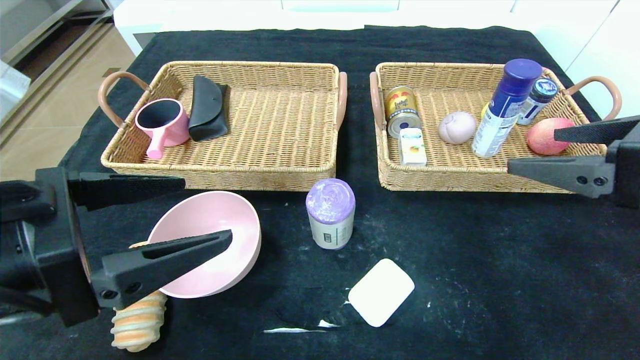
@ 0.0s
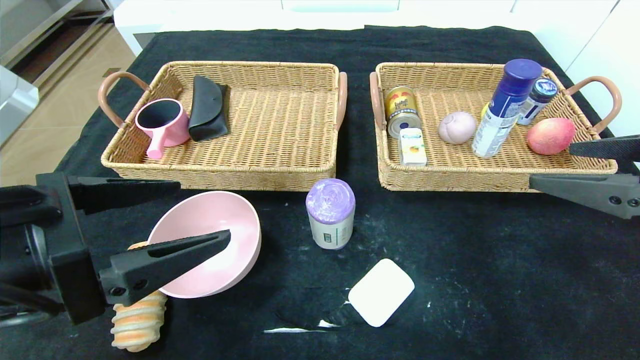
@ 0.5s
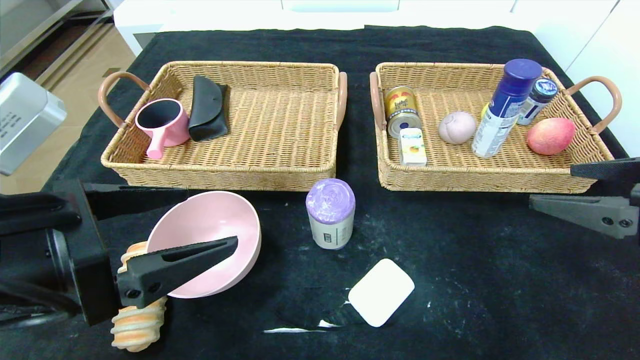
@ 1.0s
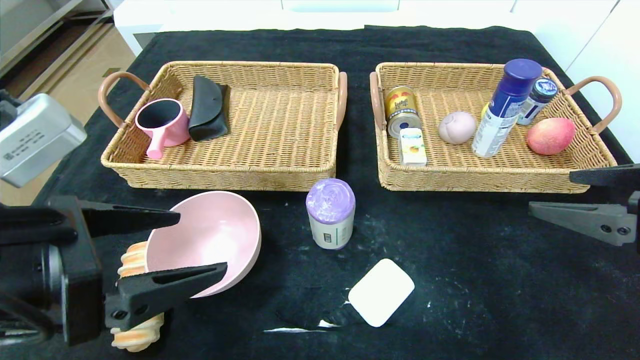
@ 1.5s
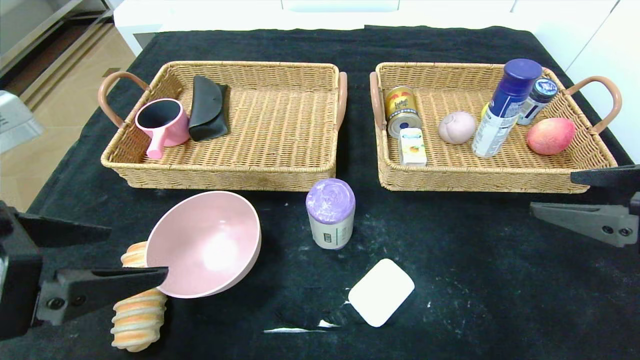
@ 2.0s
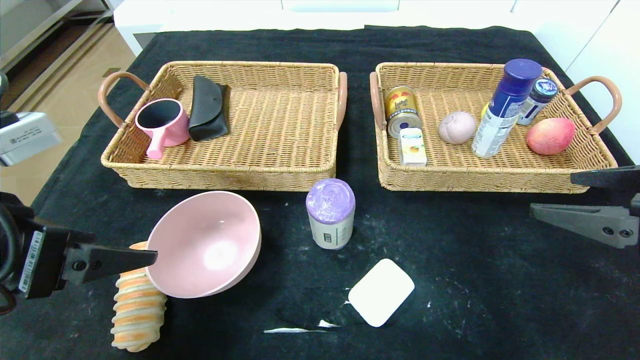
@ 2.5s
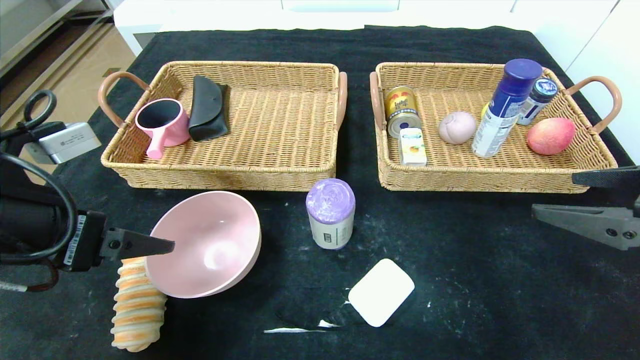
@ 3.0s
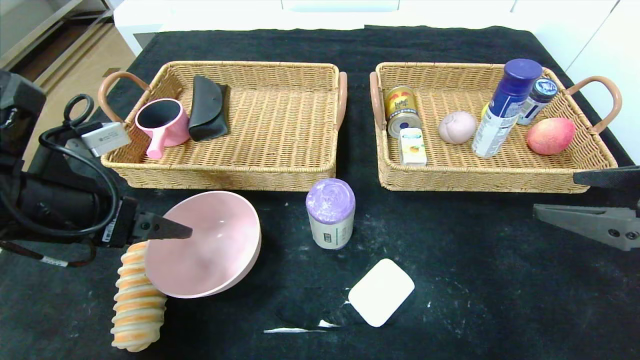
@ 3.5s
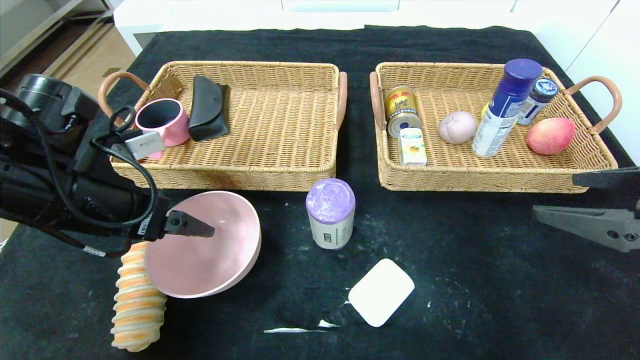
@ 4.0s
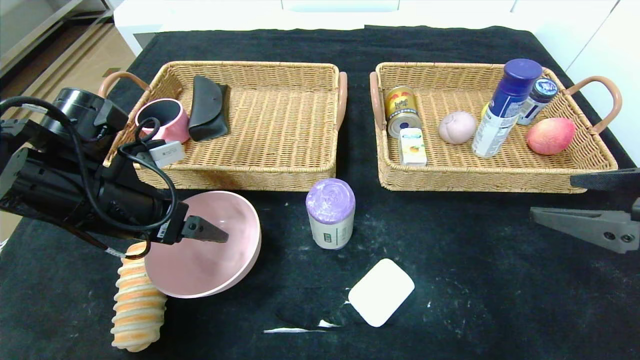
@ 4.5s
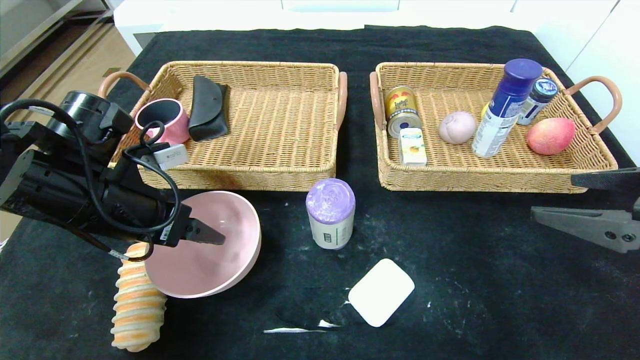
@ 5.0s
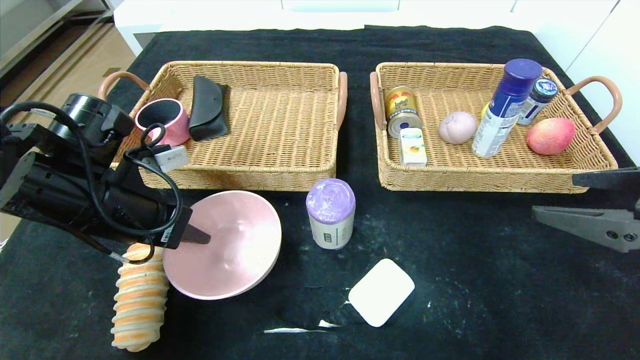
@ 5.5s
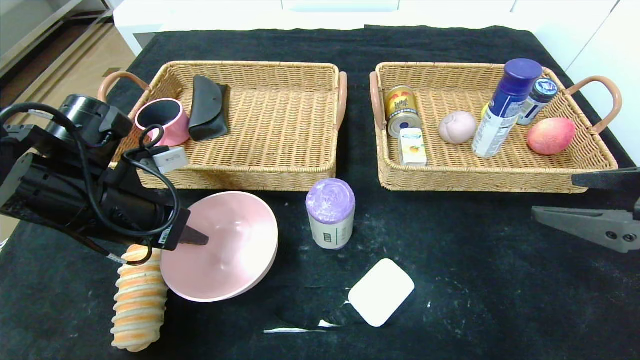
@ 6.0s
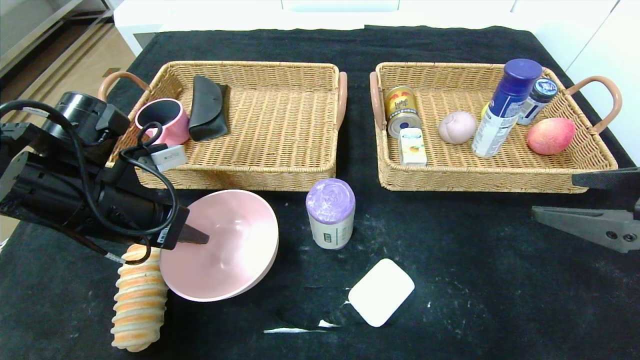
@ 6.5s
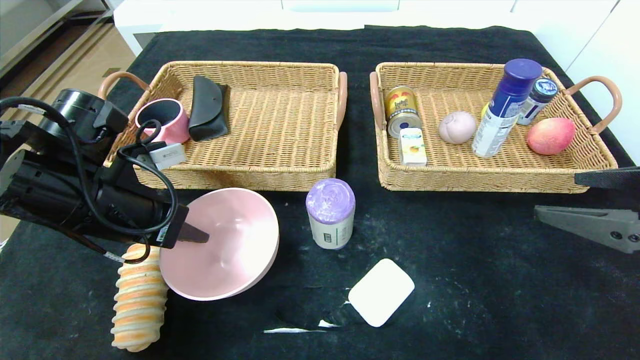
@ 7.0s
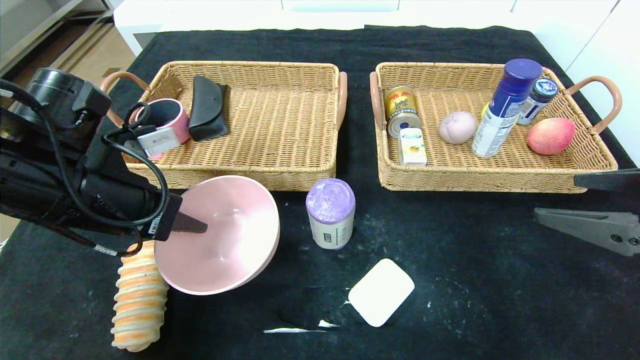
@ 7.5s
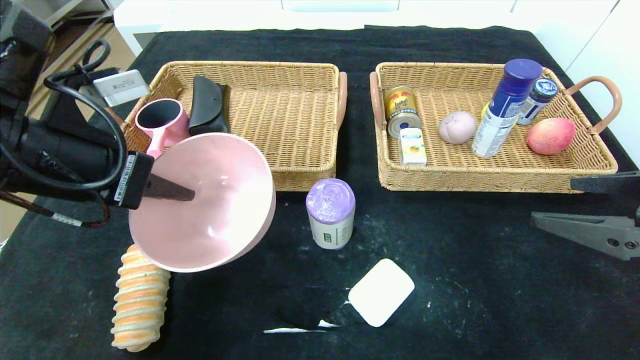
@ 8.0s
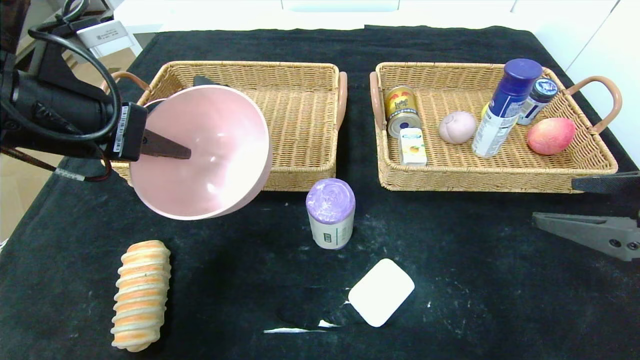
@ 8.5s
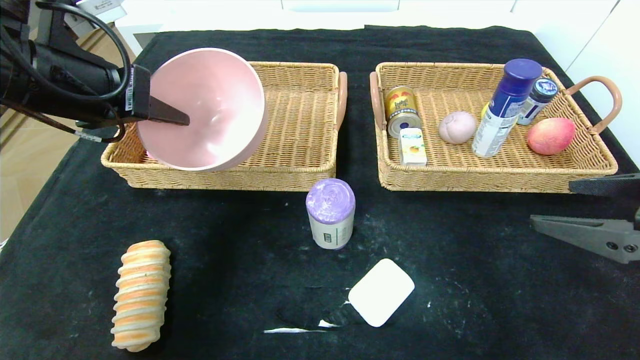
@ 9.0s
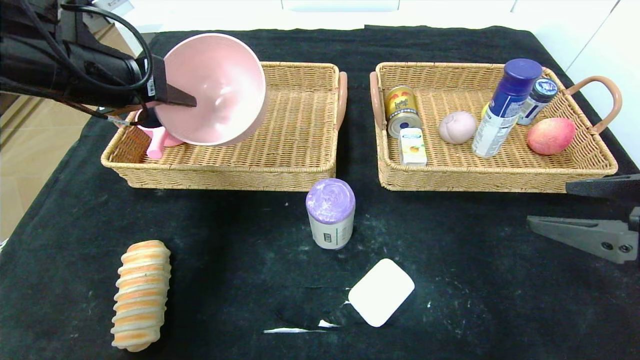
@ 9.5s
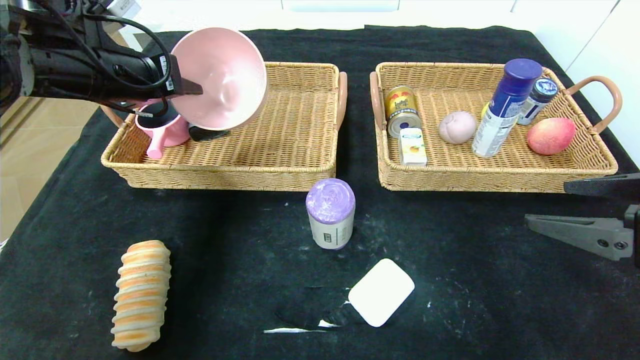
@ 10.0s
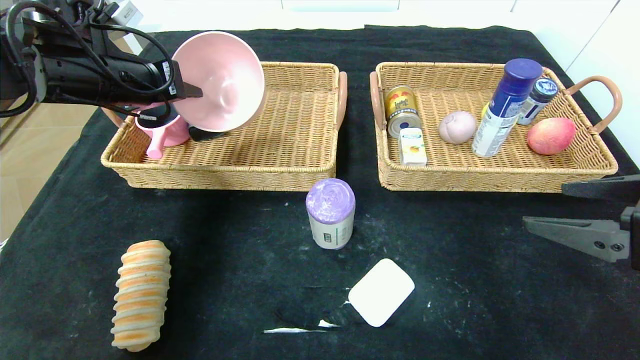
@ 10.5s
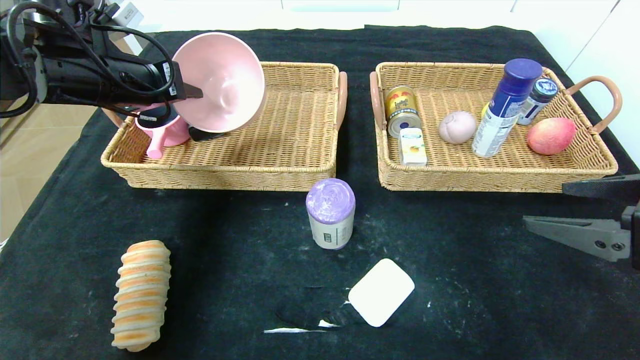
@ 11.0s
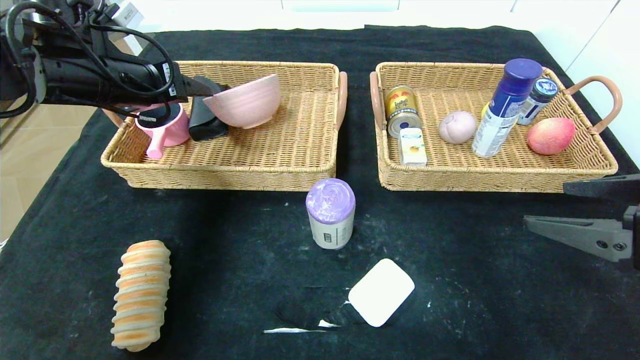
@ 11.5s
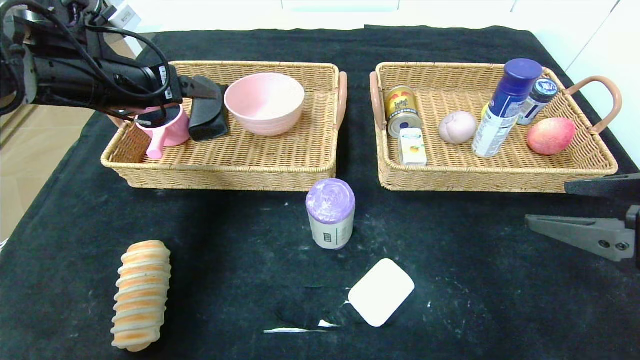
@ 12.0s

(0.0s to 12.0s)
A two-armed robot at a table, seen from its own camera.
Step, 0.0s - 11.5s: Grasp the pink bowl and put it in the left basket.
2.0s - 4.0s: The left gripper shifts roughly 15 cm forward.
4.0s - 6.0s: The left gripper closes up.
6.0s - 8.0s: The left gripper heads upward, covering some 10 cm.
8.0s - 10.0s: The left gripper is displaced forward by about 15 cm.
10.0s - 12.0s: The left gripper opens.

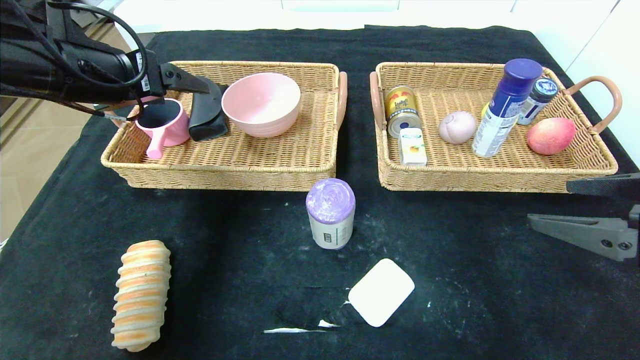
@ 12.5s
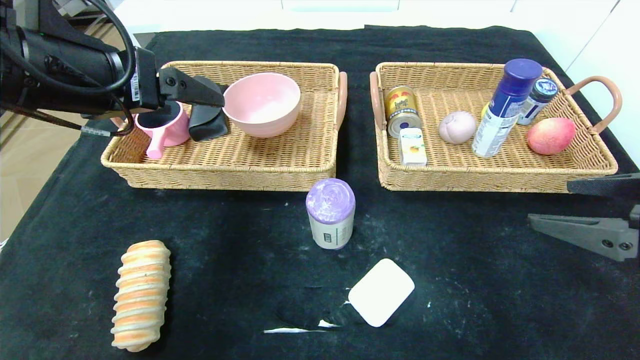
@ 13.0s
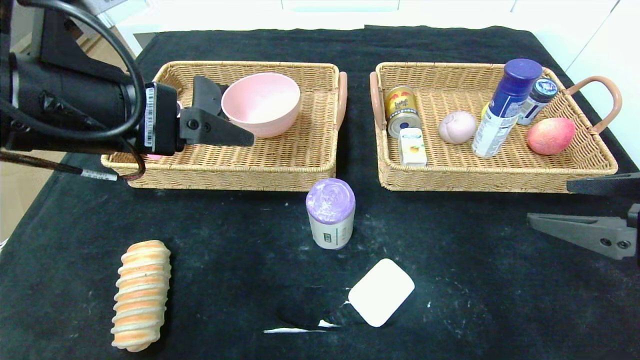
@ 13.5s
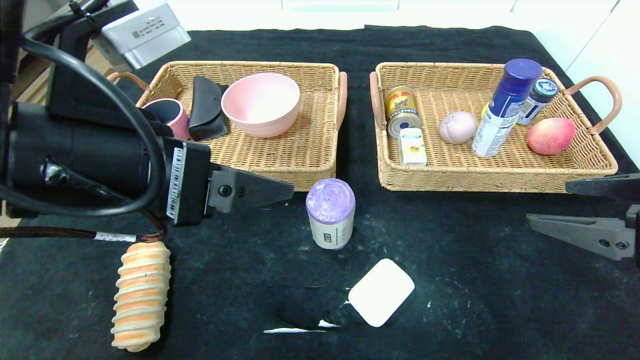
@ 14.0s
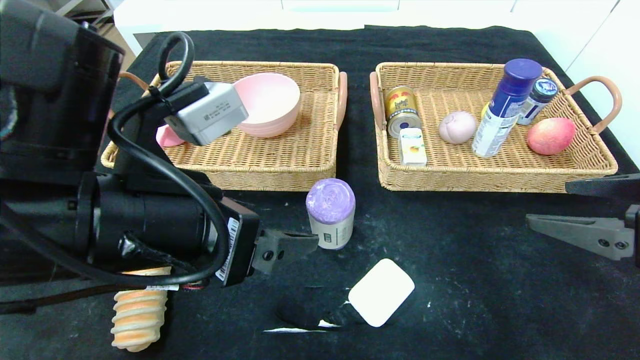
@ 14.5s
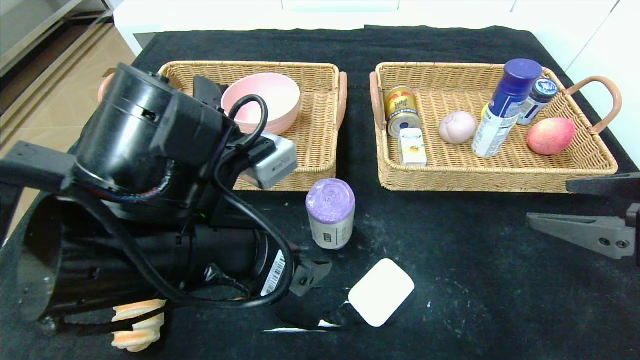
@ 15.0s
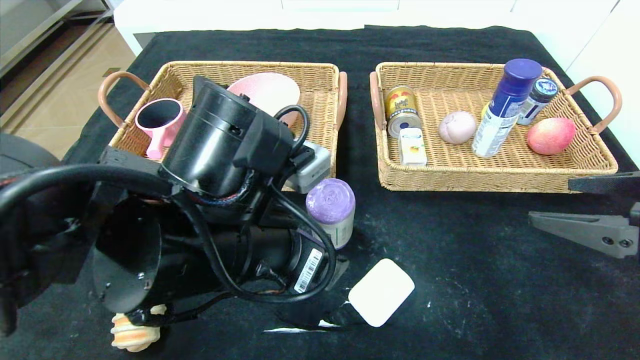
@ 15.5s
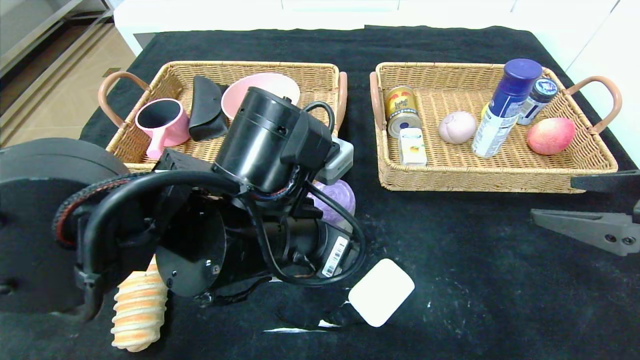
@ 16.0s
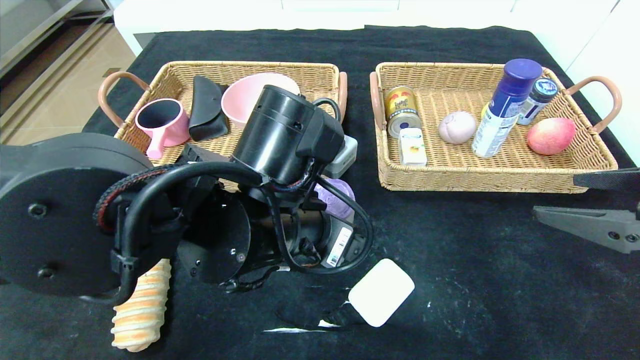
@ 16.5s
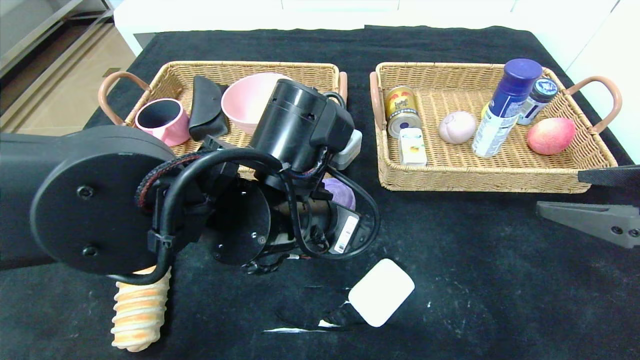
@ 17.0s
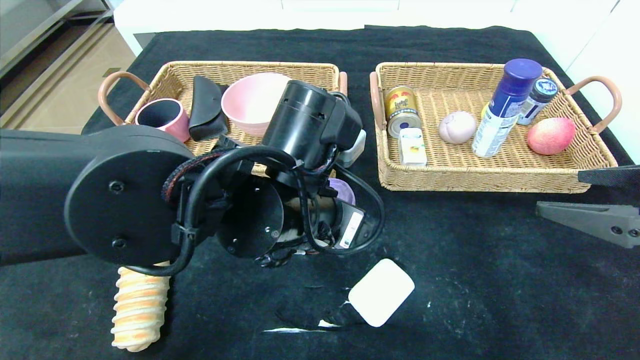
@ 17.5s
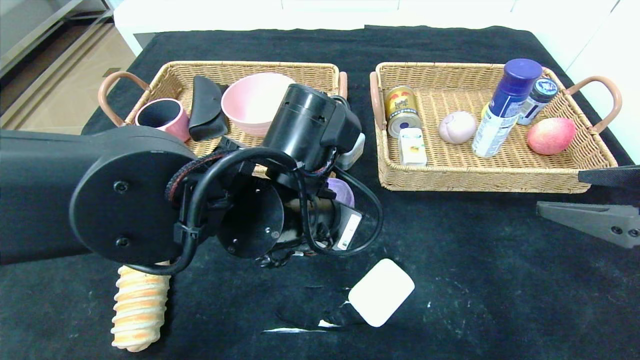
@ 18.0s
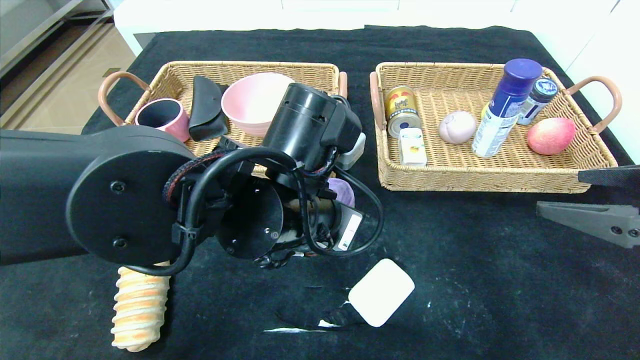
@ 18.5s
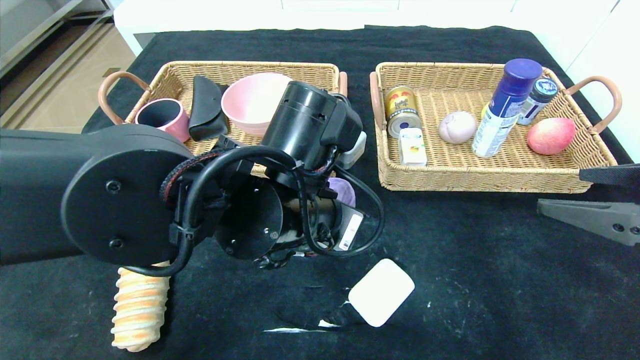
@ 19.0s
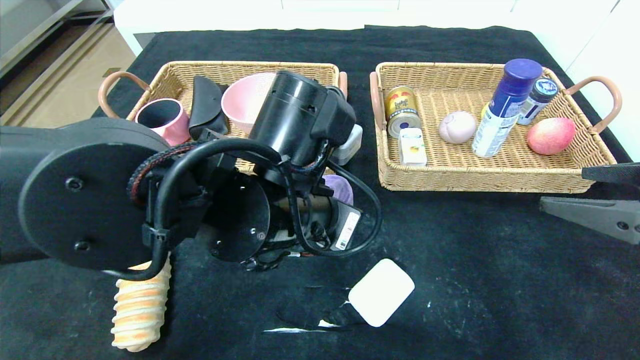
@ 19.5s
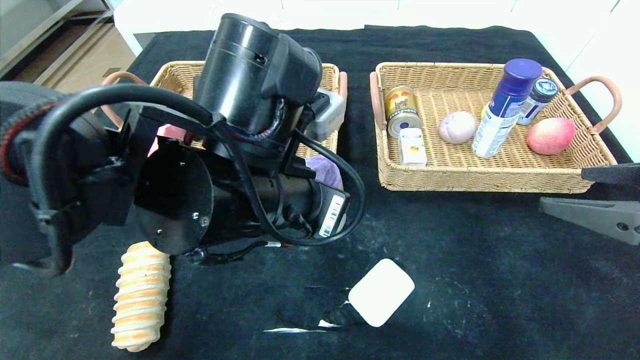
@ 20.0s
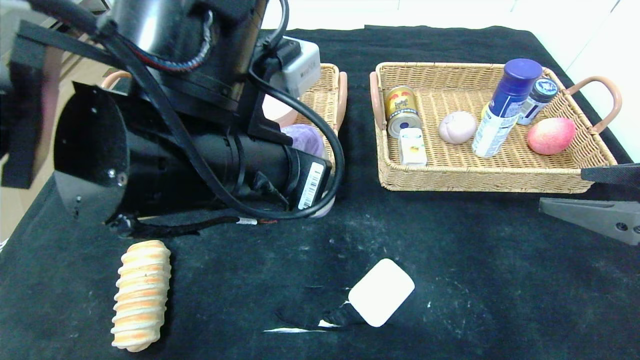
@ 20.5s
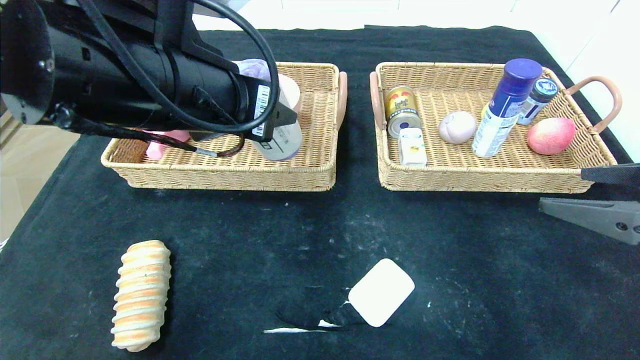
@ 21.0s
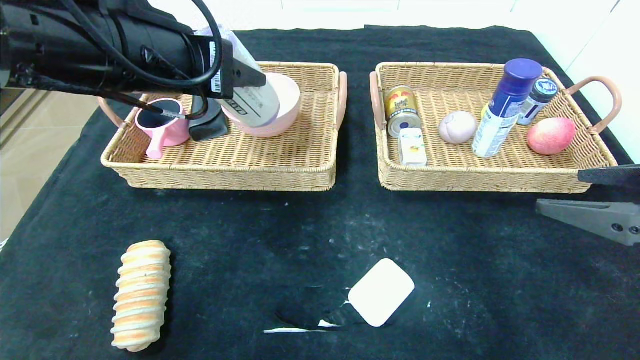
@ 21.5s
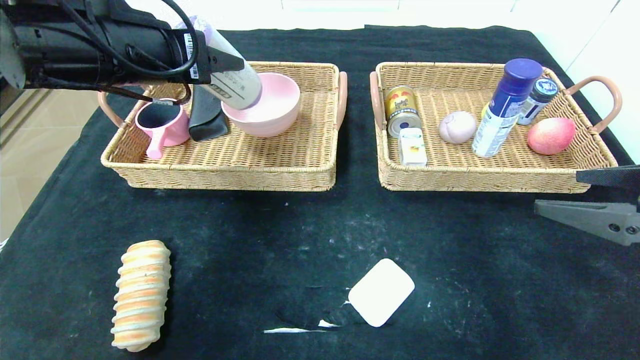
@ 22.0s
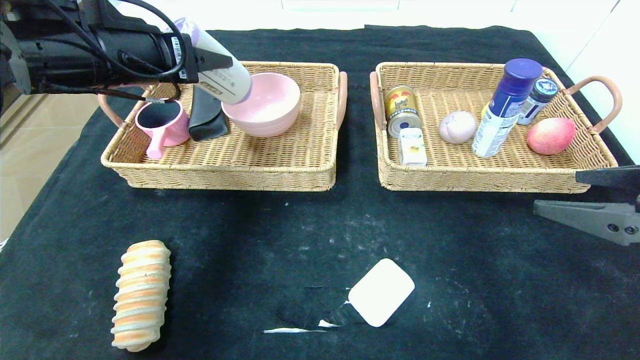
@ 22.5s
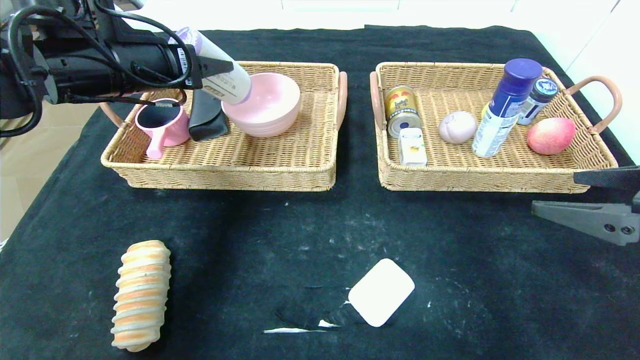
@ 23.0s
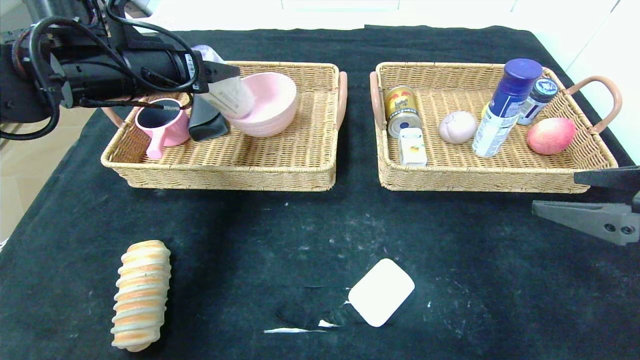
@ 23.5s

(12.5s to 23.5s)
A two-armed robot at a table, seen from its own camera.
12.5s - 14.5s: The left gripper heads backward, to the right and downward, covering about 20 cm.
14.5s - 16.0s: The left gripper shifts roughly 10 cm to the right.
16.0s - 18.0s: The left gripper closes.
18.0s - 20.0s: The left gripper changes place by about 5 cm.
20.0s - 21.5s: The left gripper shifts approximately 15 cm to the left and upward.
21.5s - 23.5s: The left gripper shifts about 15 cm forward and to the left.
